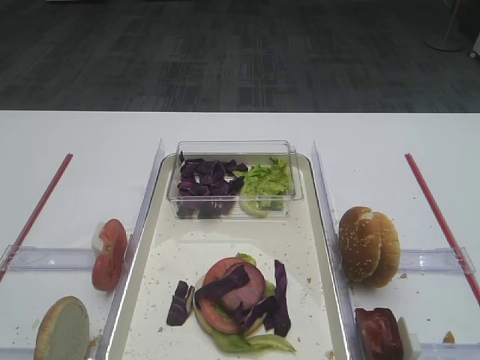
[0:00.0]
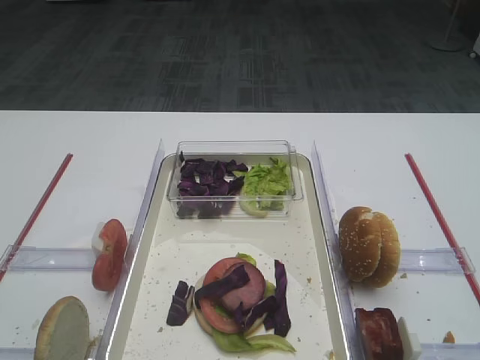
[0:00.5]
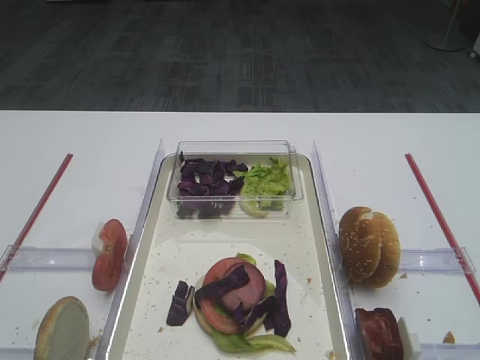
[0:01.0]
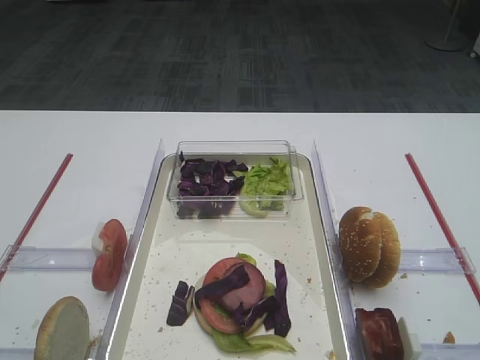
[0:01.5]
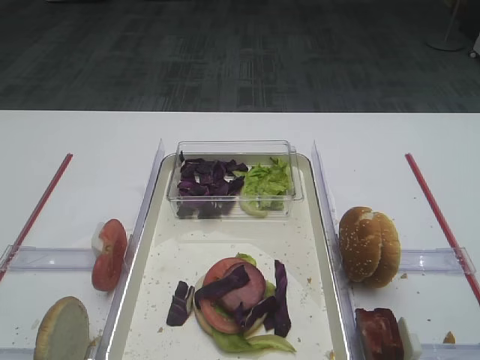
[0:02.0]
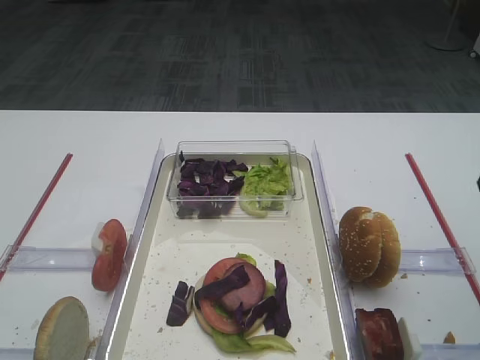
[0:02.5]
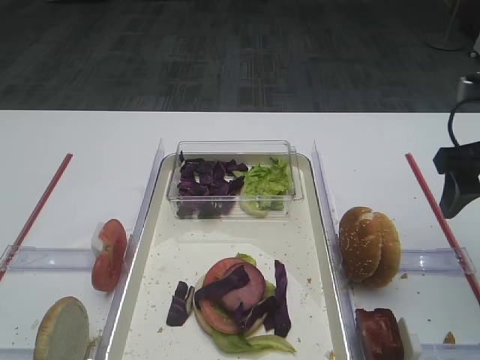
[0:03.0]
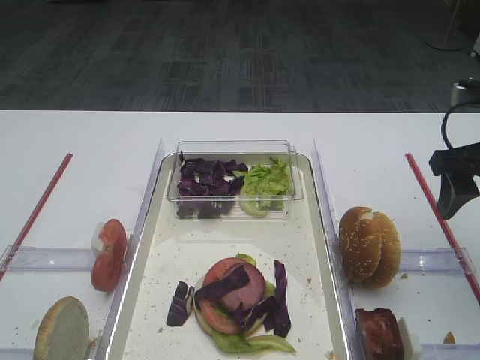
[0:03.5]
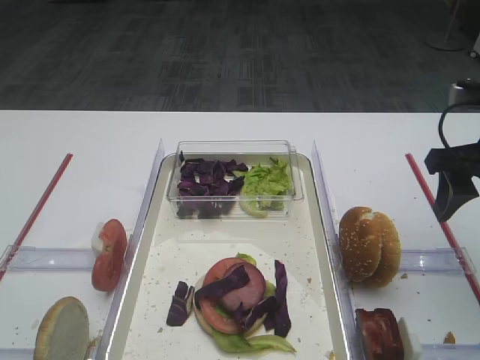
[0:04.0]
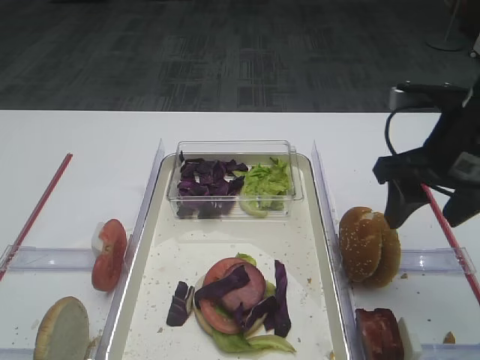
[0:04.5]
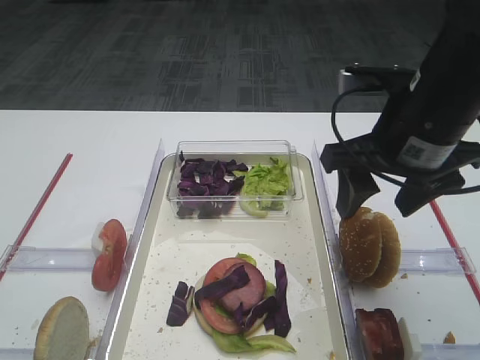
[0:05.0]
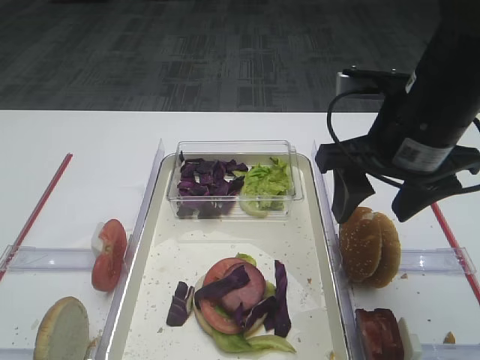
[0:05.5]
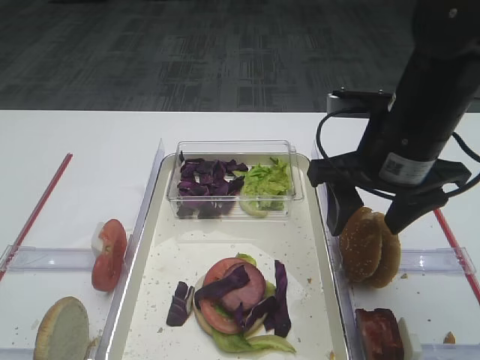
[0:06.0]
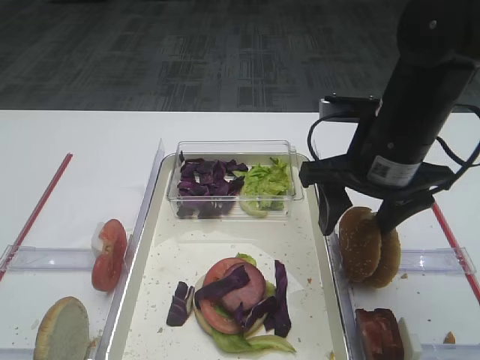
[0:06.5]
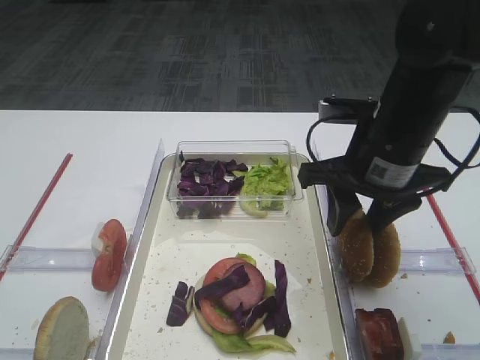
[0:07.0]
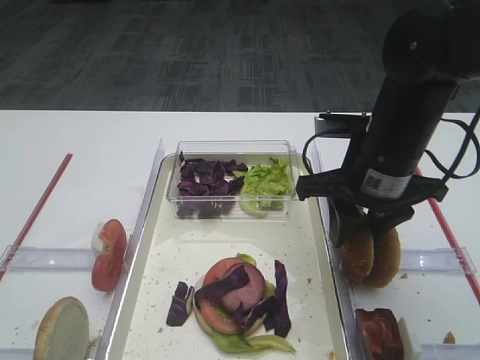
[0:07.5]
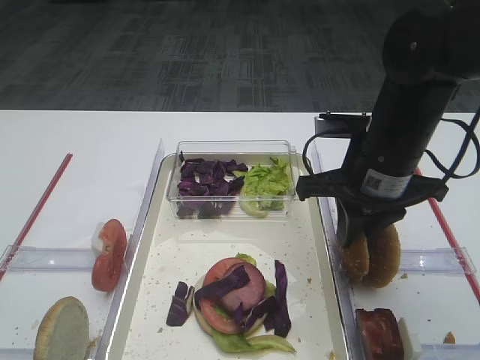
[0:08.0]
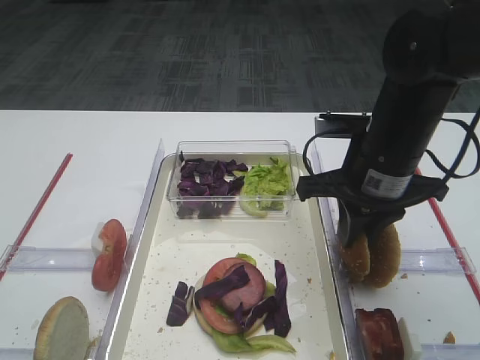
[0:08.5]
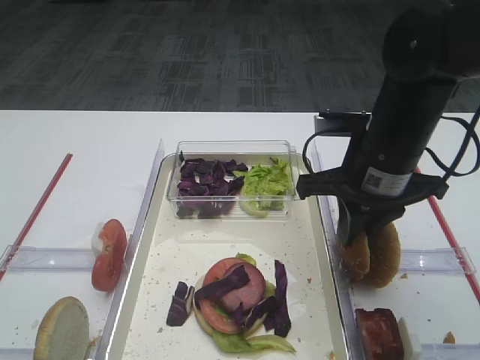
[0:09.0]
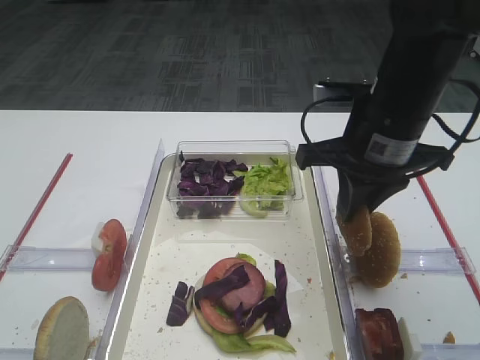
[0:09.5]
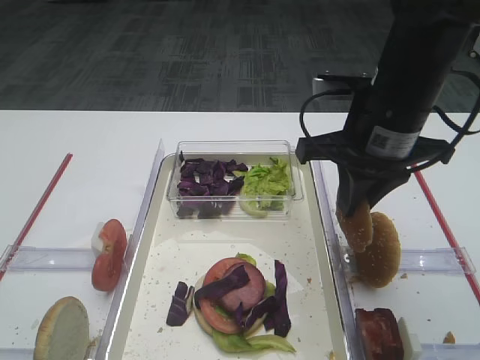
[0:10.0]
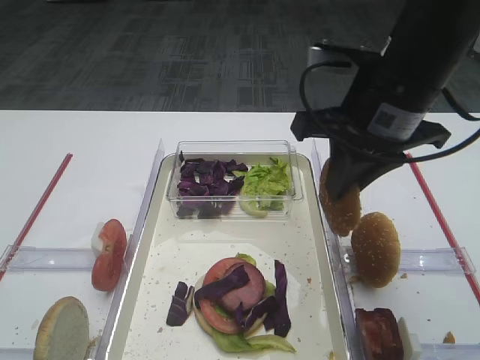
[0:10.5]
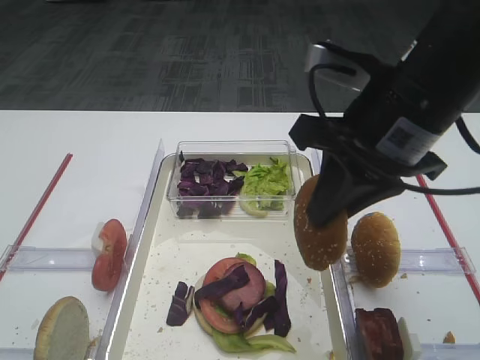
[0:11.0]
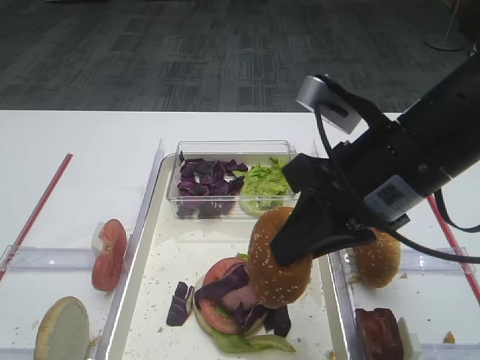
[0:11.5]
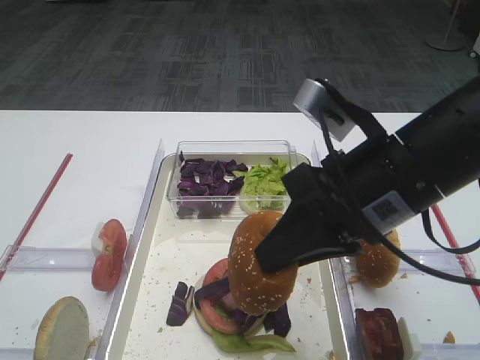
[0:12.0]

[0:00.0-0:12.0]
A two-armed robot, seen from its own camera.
Step, 0:00.0 to 0:10.0: Pick up the hamburger lid with the right gripper.
0:02.0 to 0:04.0: The right gripper is displaced forward and downward by roughly 20 cm.
0:04.0 to 0:06.0: The right gripper goes roughly 10 cm to the left.
0:06.0 to 0:08.0: The right gripper closes.
0:08.0 to 0:10.0: There are only small adjustments of the grippers.
0:10.0 to 0:12.0: The right gripper travels backward by roughly 10 cm.

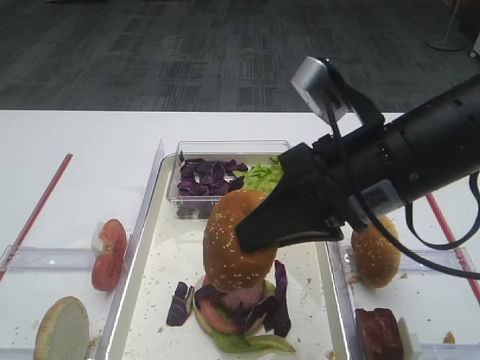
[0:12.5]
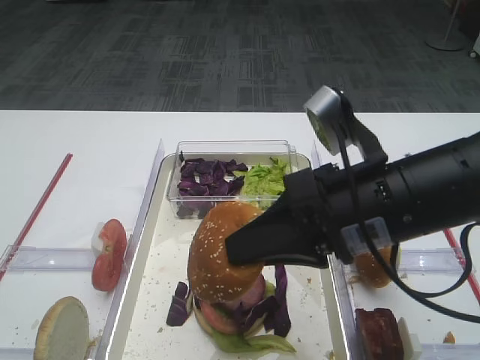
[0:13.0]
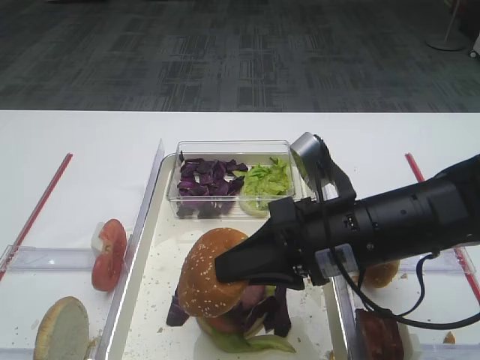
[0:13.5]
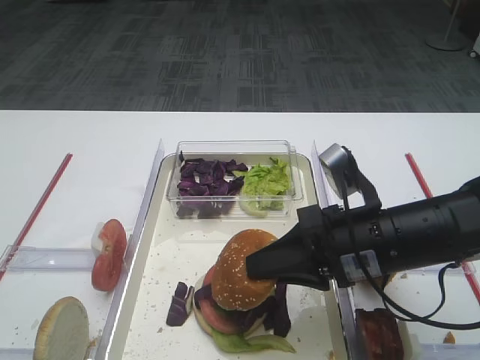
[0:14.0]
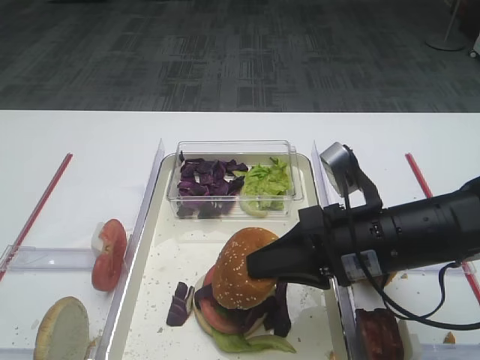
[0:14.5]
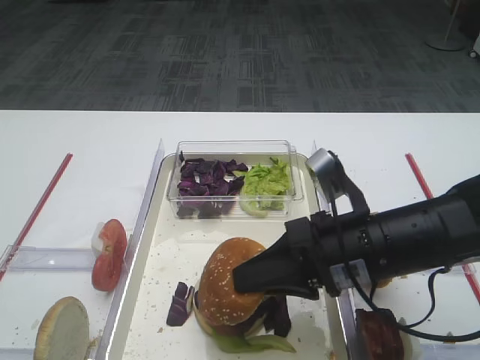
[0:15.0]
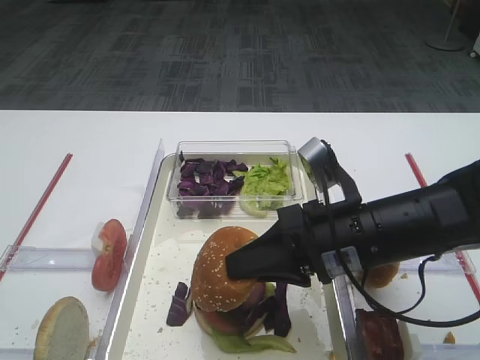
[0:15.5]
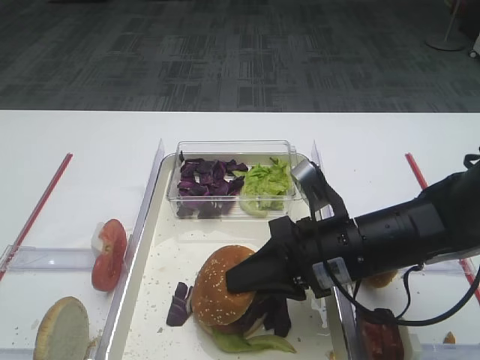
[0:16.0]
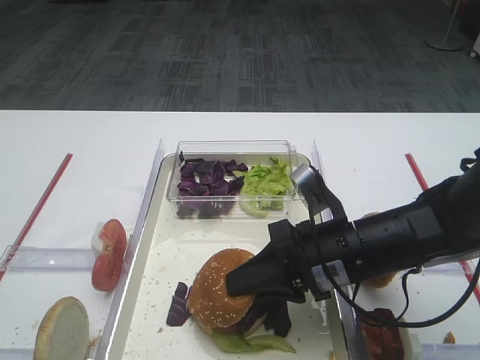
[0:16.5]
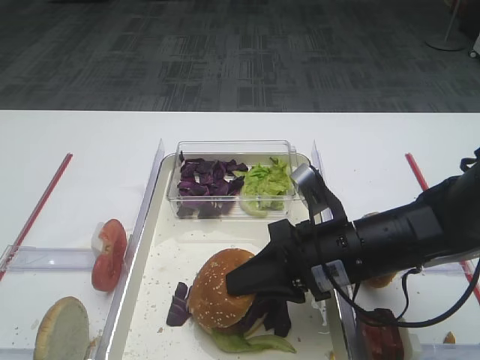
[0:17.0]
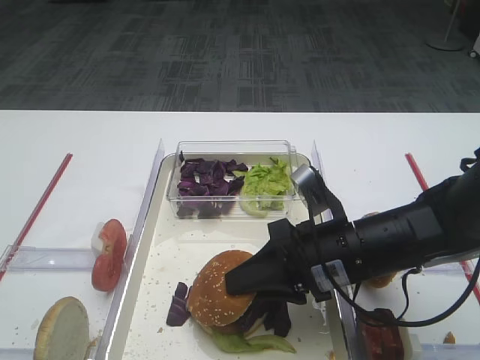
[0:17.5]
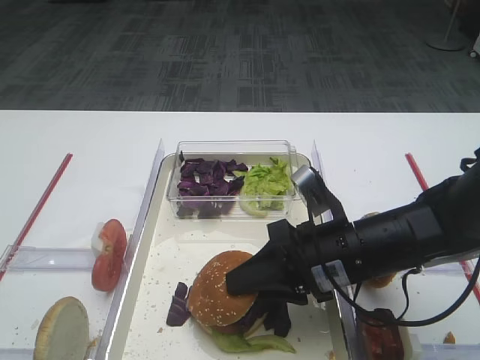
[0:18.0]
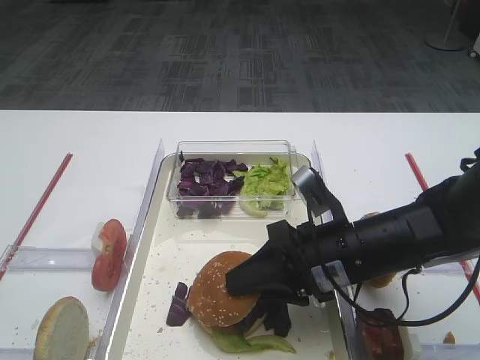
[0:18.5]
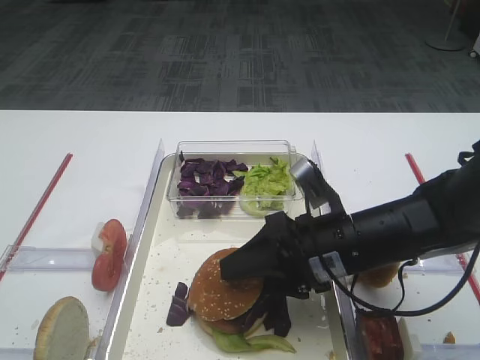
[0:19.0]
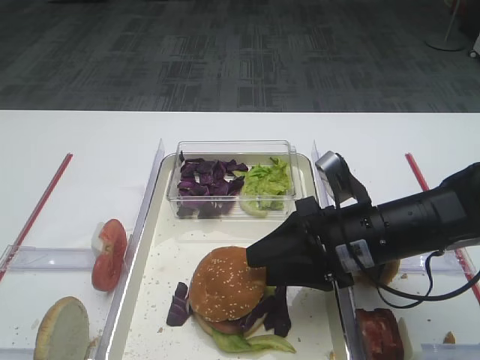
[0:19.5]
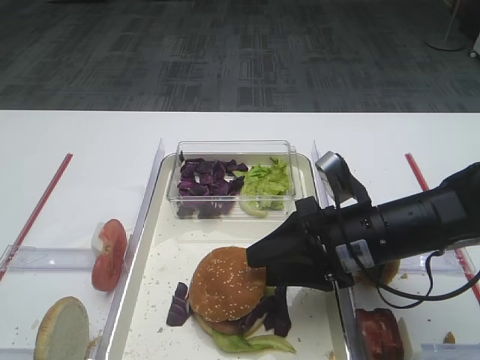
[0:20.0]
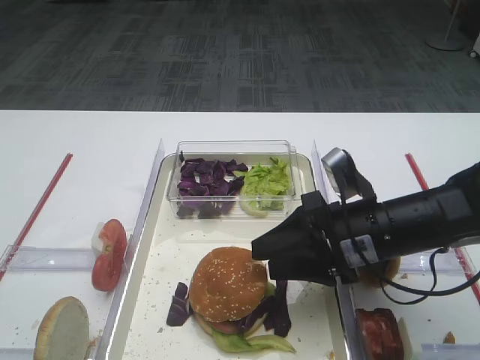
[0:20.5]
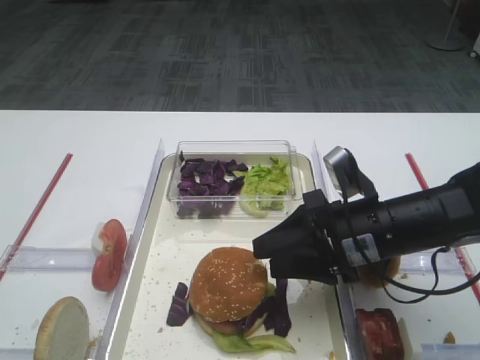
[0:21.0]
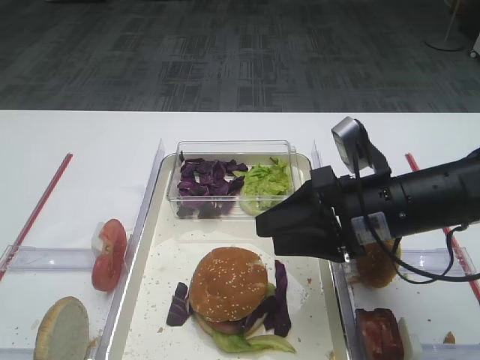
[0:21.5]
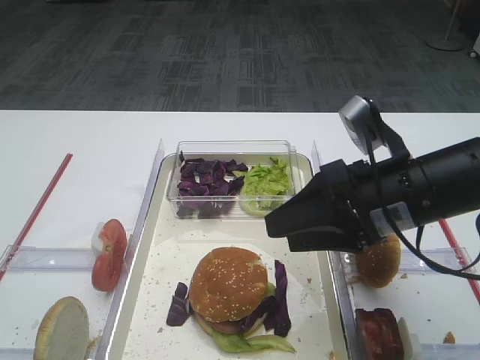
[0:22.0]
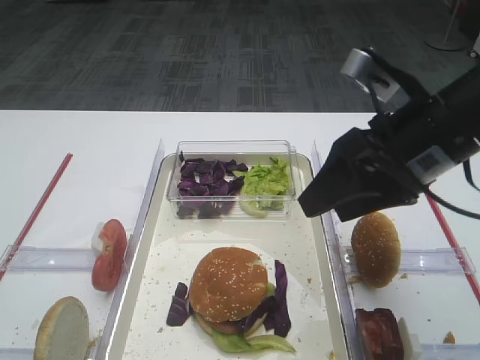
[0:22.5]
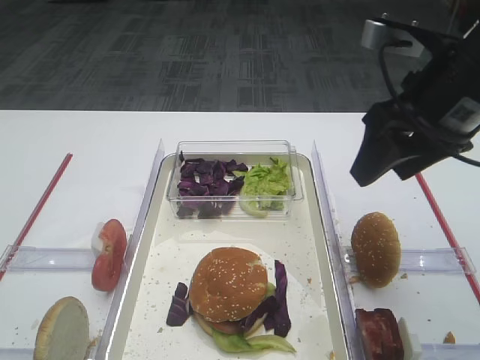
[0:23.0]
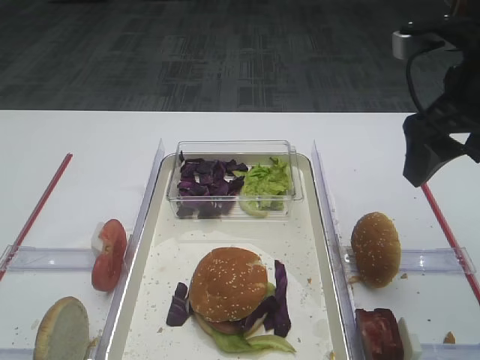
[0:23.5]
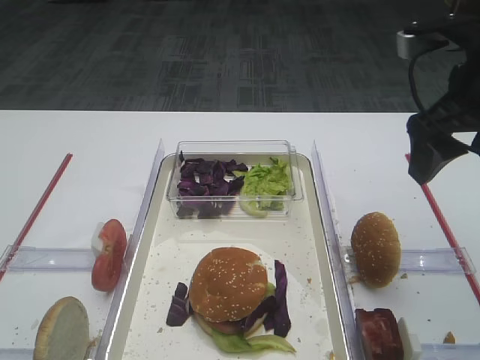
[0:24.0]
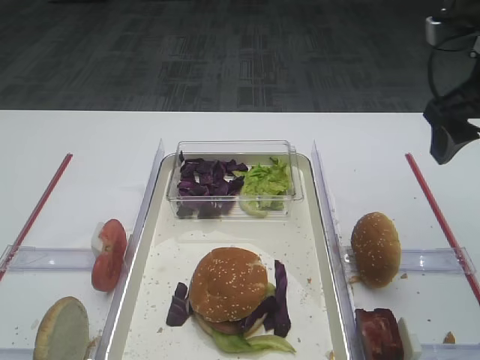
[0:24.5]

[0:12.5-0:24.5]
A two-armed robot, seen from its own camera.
Step, 0:12.5 to 0:20.5: Place the hamburger lid on the purple cabbage with the right gripper.
0:12.5 to 0:14.5: The right gripper shifts about 10 cm downward.
0:14.5 to 0:16.5: The grippers make only small movements.
0:16.5 to 0:18.5: Neither gripper changes place.
0:18.5 to 0:20.5: The grippers make only small movements.
0:20.5 to 0:22.5: The right gripper shifts approximately 15 cm upward.
0:22.5 to 0:24.5: The right gripper is displaced to the right by approximately 10 cm.

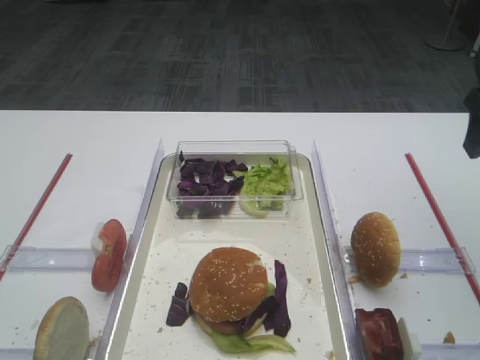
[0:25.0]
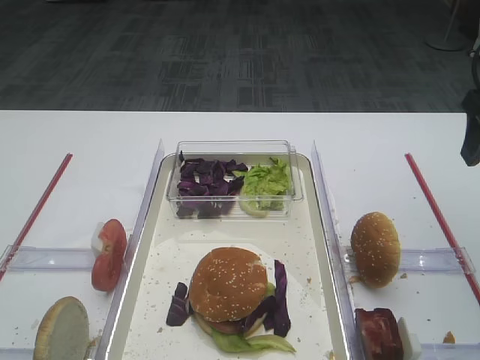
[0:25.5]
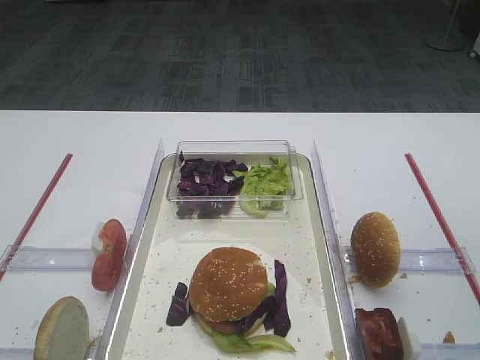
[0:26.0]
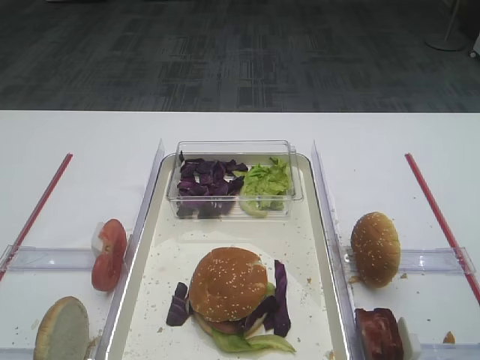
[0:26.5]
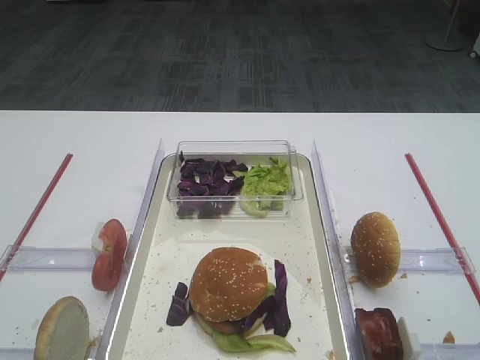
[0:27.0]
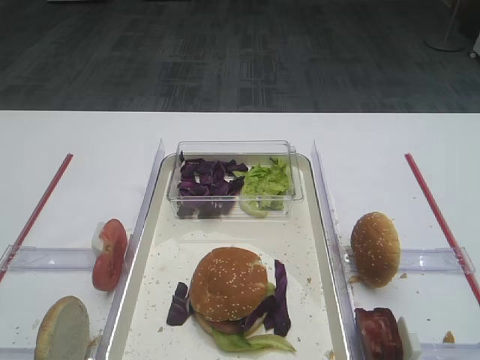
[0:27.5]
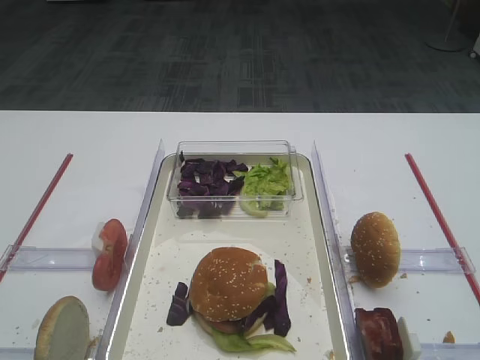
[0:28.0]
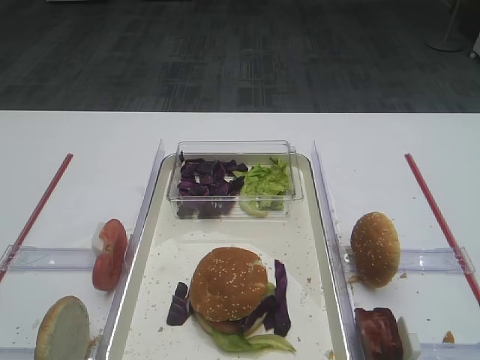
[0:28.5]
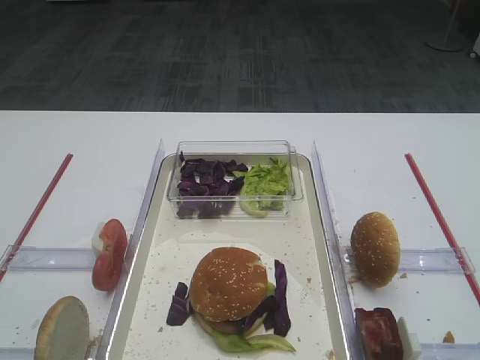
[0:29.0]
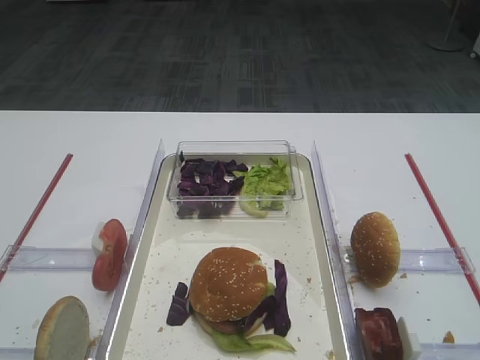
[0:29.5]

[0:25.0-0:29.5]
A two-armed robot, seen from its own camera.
0:25.0 to 0:27.0: The right gripper shifts approximately 25 cm backward.
